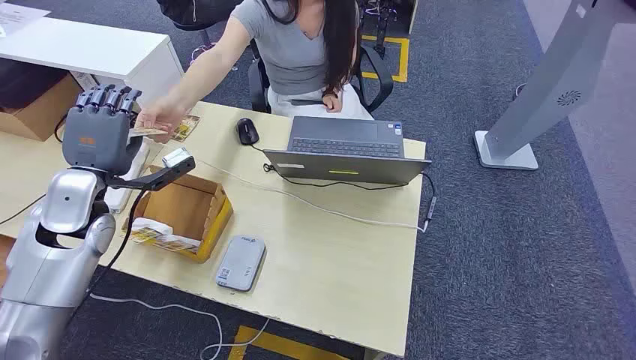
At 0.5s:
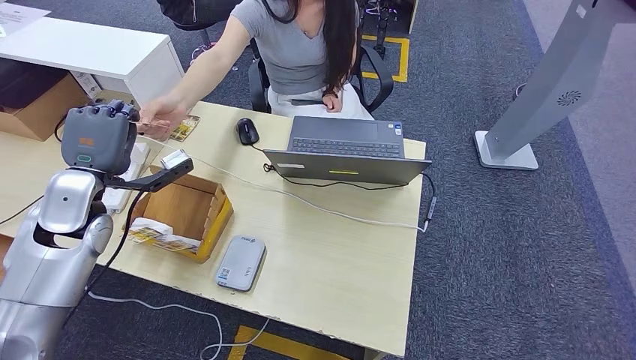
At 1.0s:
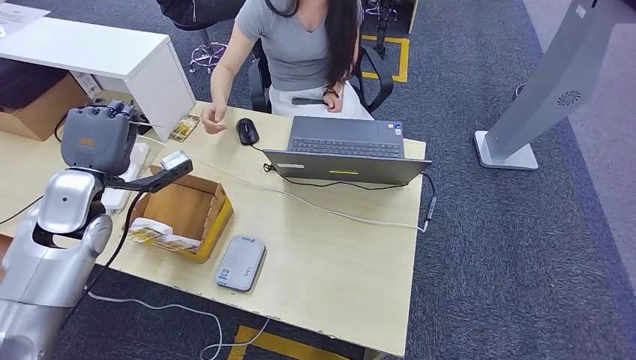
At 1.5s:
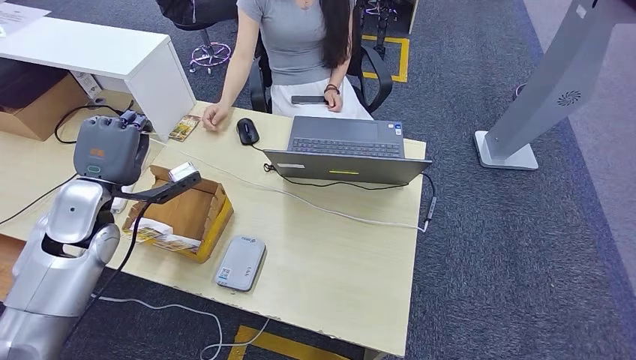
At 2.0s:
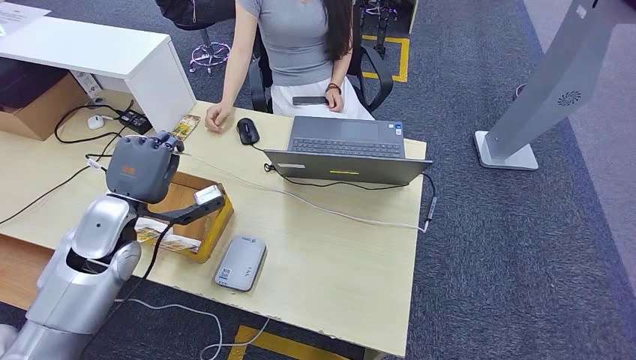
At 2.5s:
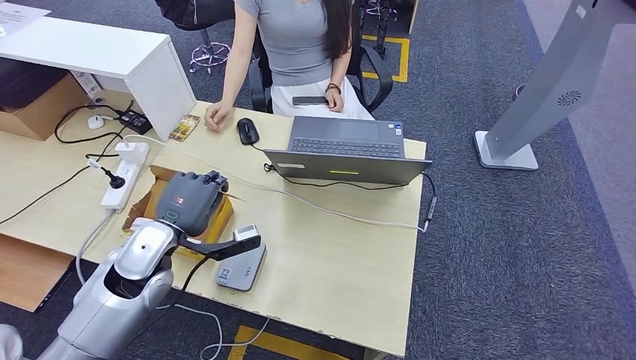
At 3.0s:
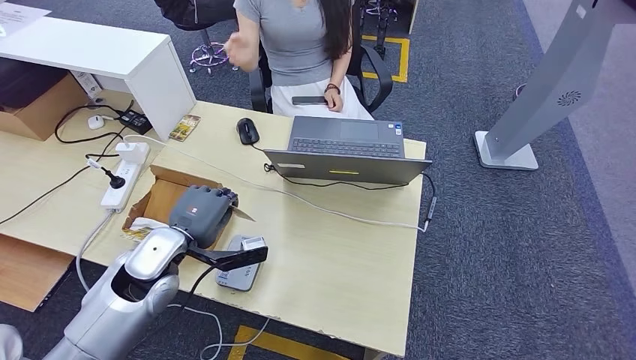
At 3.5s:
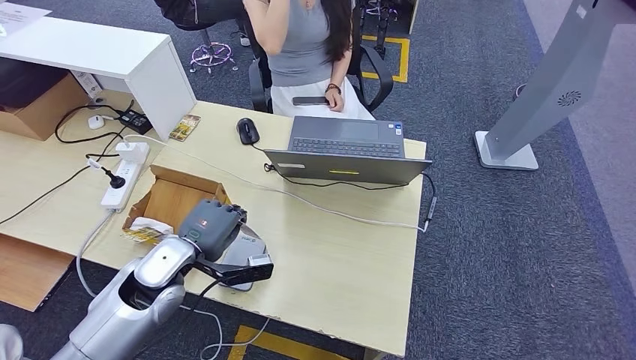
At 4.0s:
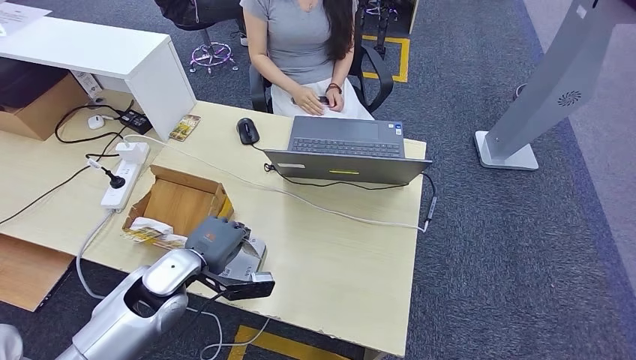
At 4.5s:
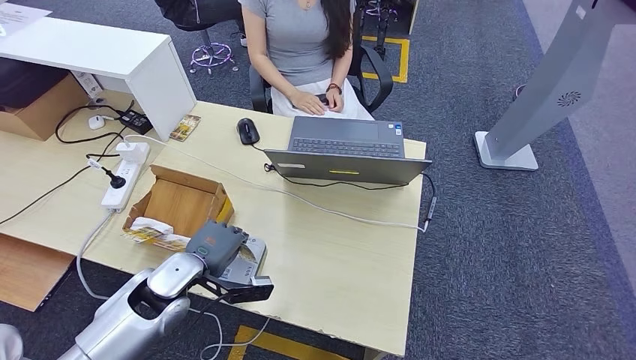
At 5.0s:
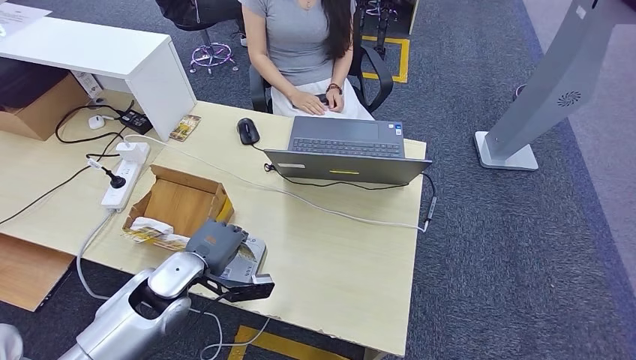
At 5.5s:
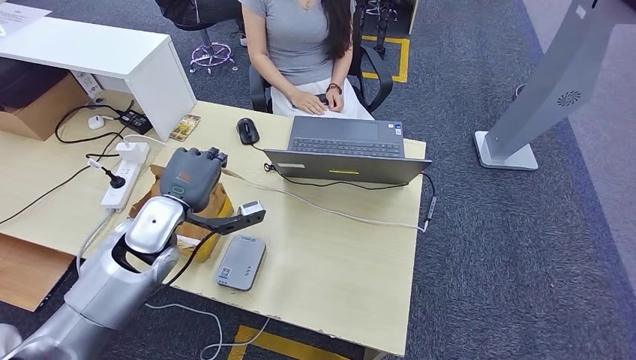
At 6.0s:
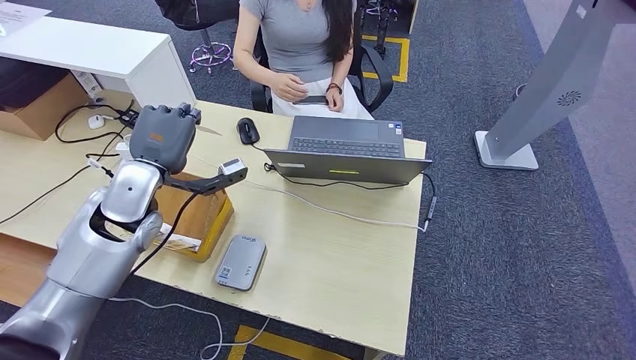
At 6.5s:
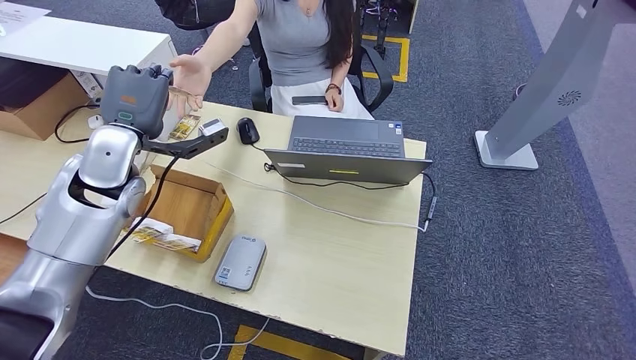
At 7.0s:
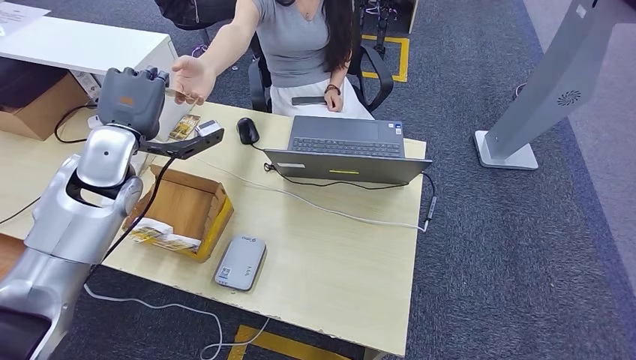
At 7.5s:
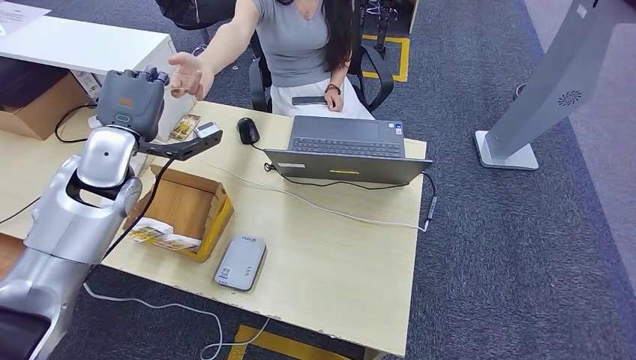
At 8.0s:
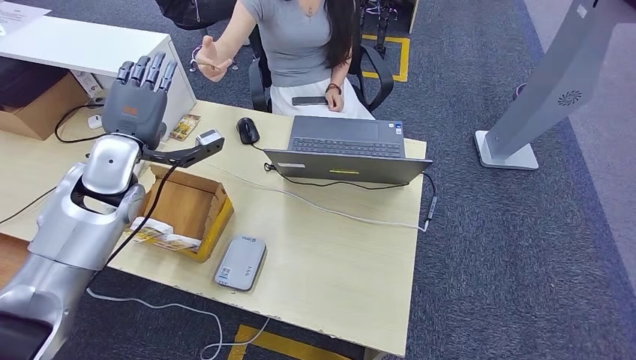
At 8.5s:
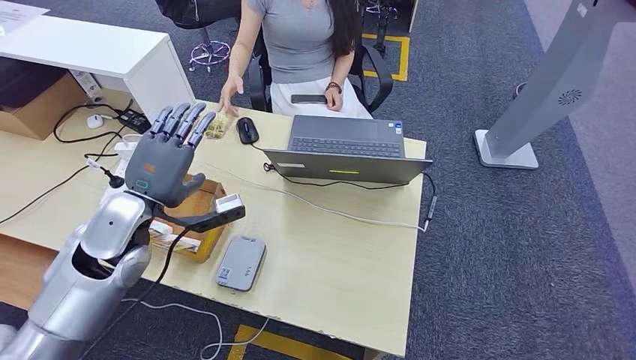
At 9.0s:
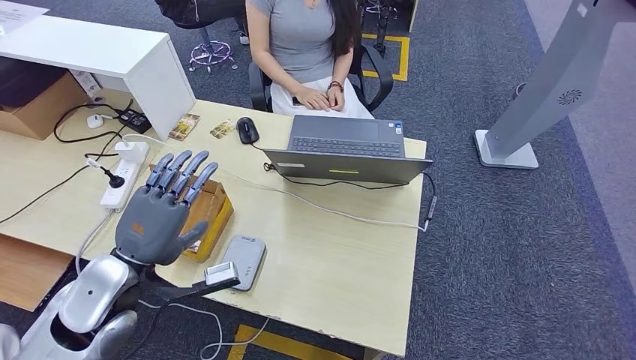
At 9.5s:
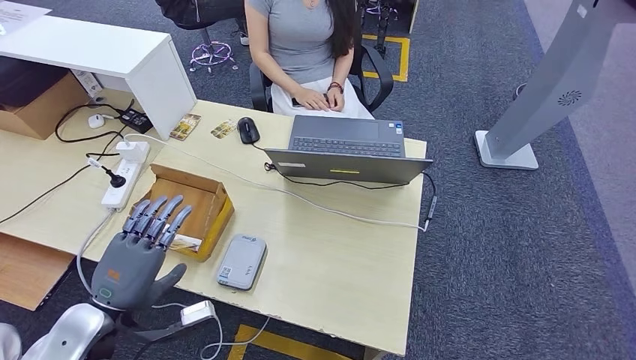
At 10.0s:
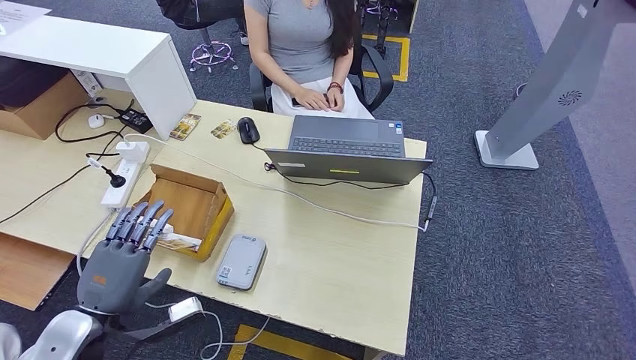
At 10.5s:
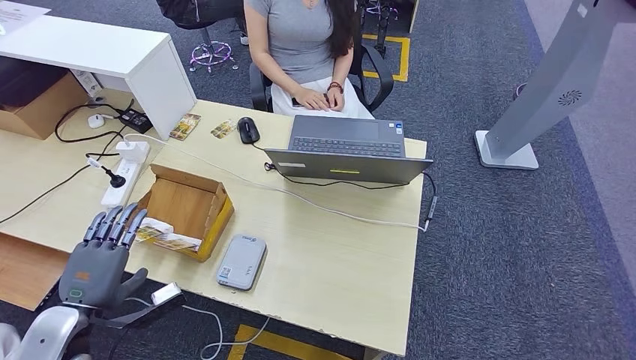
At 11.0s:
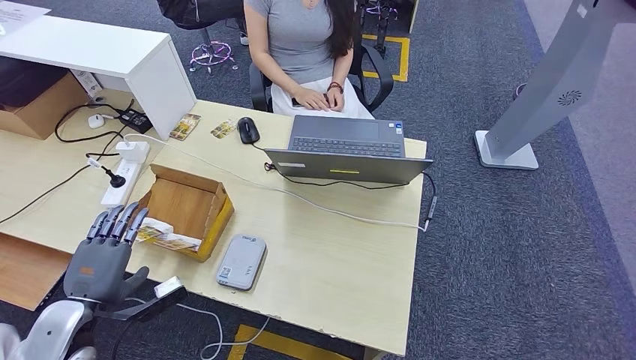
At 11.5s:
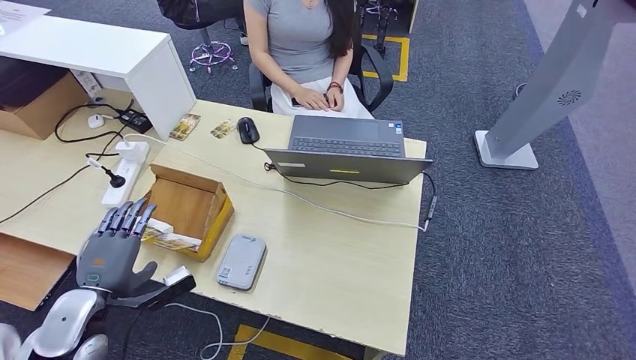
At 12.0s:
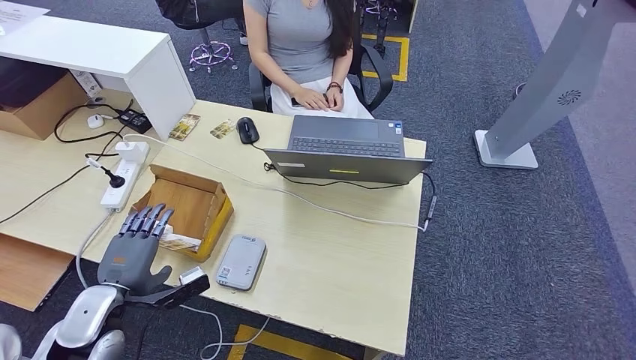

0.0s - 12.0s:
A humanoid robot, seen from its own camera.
Step, 0.0s - 1.5s: Take the ID card from the person's hand.
Step, 2.0s - 5.5s: Place the ID card on the card reader.
Step, 6.0s - 8.5s: Hand the ID card to the person.
2.0s - 4.0s: The left hand is displaced downward and to the right by about 10 cm.
4.0s - 6.0s: The left hand travels upward and forward by roughly 15 cm.
6.0s - 8.0s: The left hand moves approximately 5 cm.
8.0s - 10.0s: The left hand shifts some 25 cm backward and downward.
10.0s - 12.0s: The left hand moves some 5 cm.

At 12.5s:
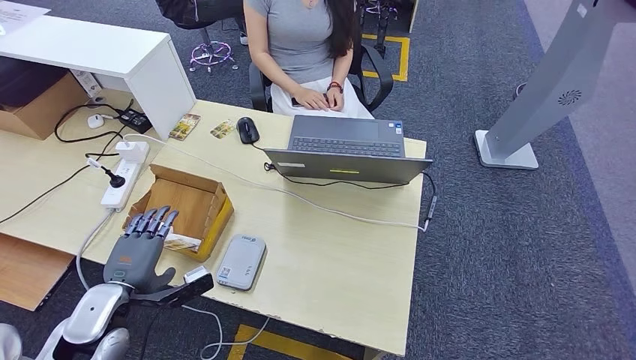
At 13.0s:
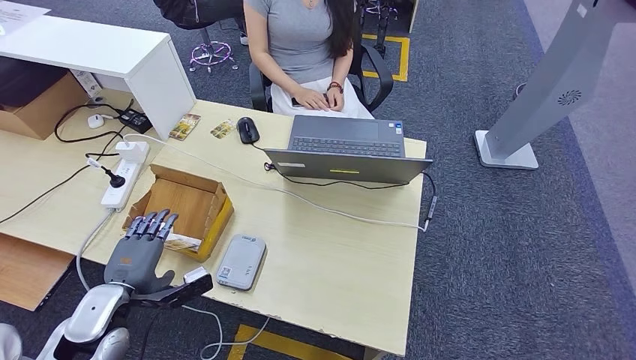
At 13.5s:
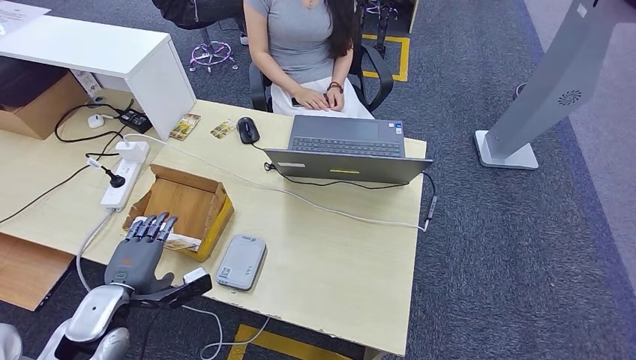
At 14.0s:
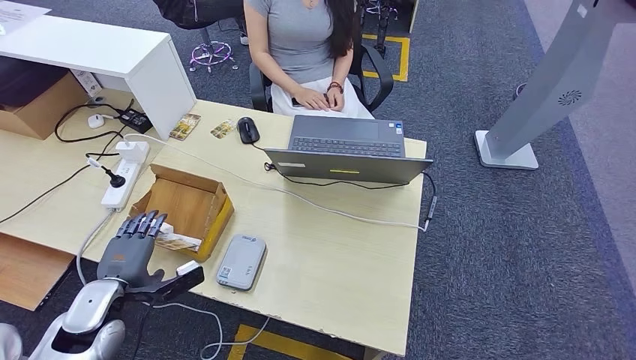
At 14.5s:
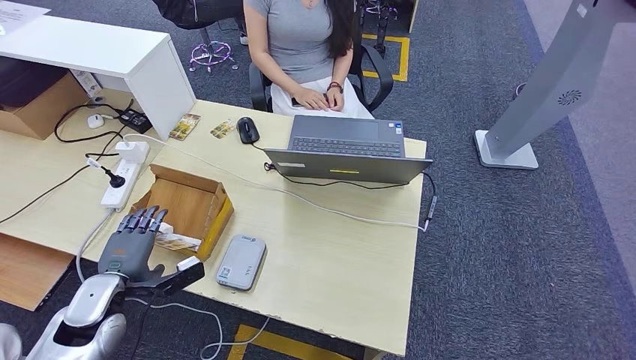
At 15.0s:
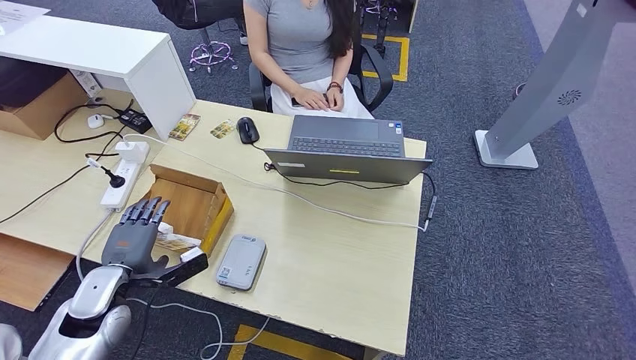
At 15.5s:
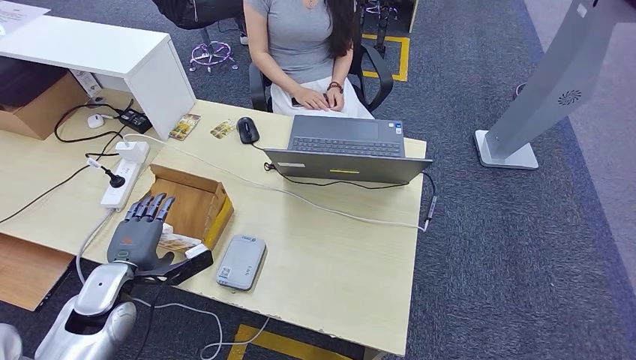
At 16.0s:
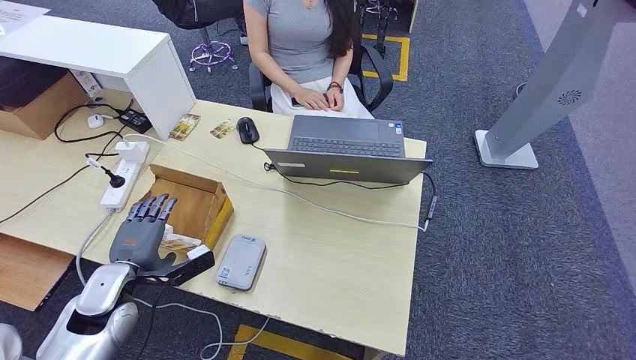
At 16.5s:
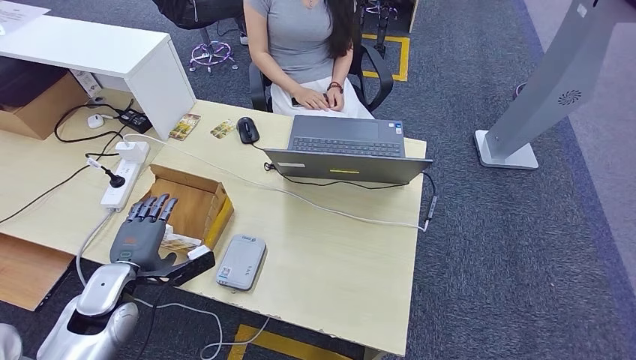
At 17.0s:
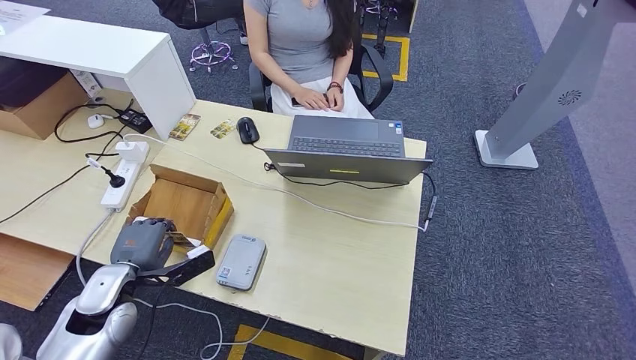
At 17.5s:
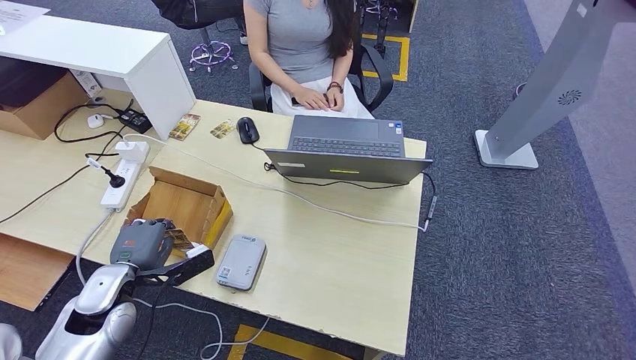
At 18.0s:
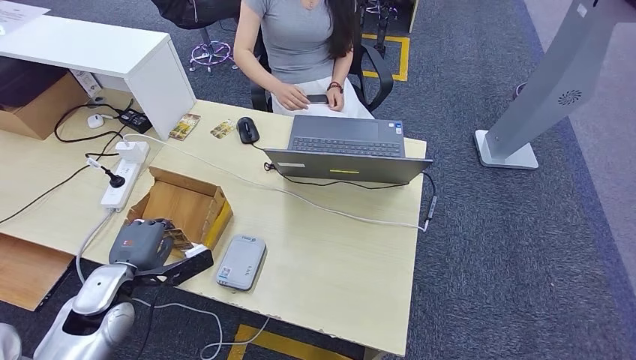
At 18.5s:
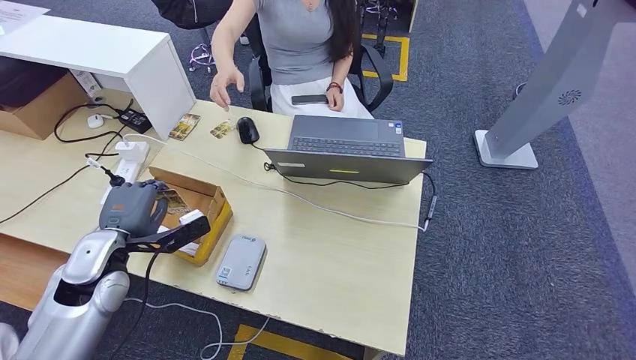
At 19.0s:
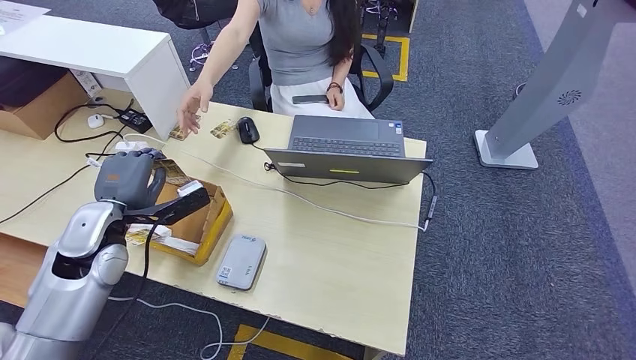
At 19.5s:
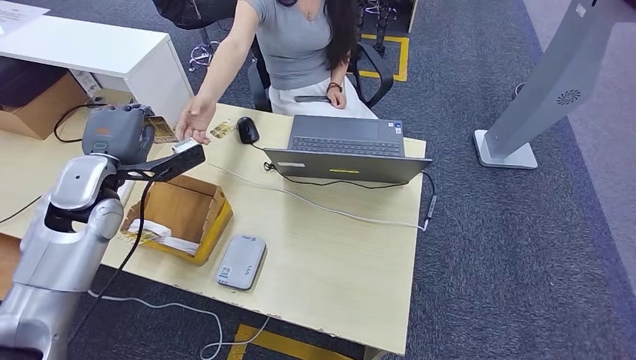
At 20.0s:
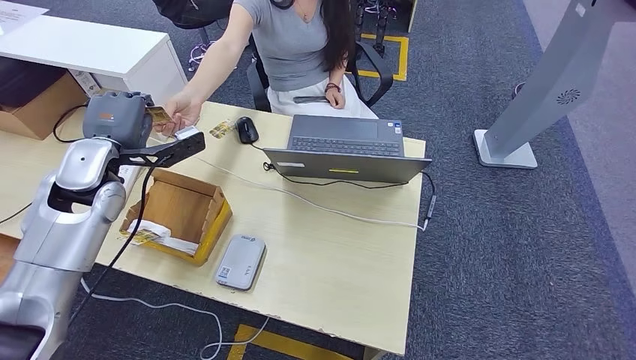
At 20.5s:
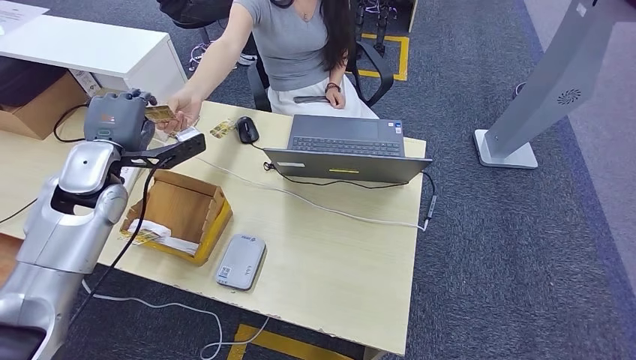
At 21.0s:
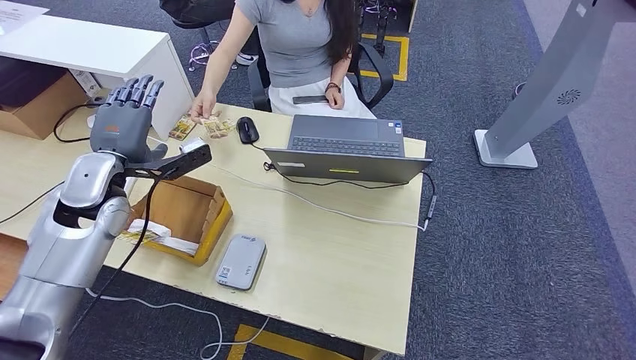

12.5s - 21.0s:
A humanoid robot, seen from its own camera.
Step, 12.5s - 19.0s: Pick up the room key from the key card box.
12.5s - 16.5s: The hands move only a little.
16.5s - 19.0s: The left hand shifts roughly 10 cm upward and forward.
19.0s - 21.0s: The left hand shifts about 10 cm forward and upward.
